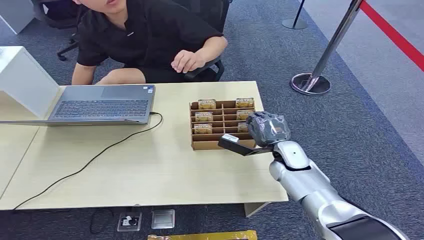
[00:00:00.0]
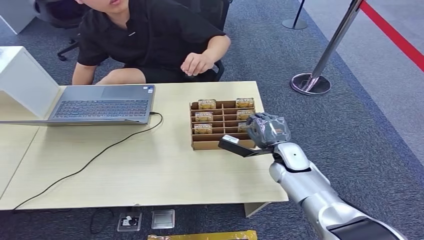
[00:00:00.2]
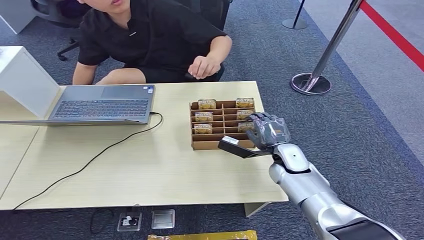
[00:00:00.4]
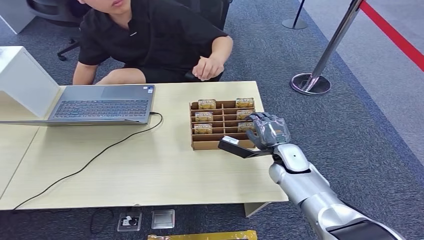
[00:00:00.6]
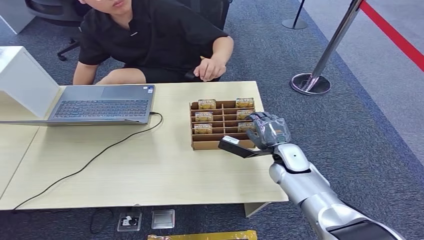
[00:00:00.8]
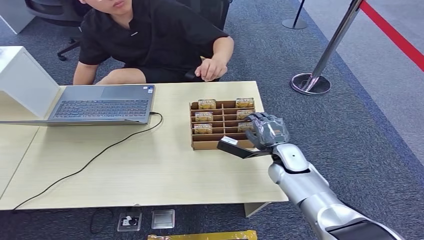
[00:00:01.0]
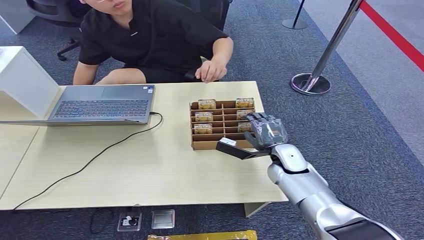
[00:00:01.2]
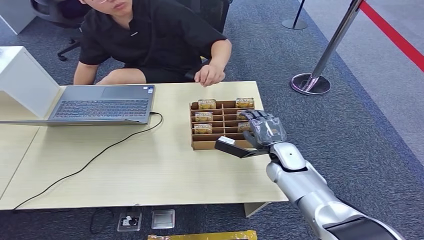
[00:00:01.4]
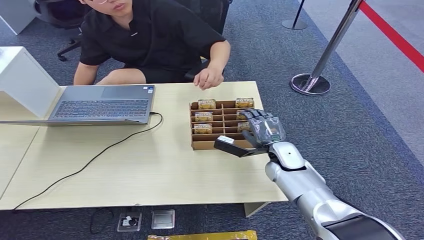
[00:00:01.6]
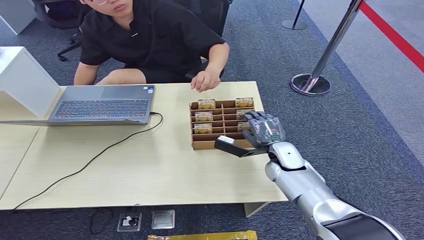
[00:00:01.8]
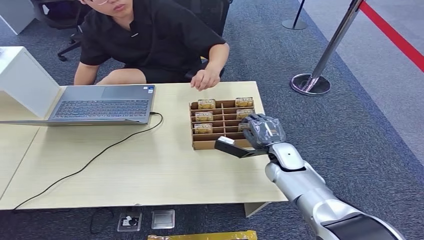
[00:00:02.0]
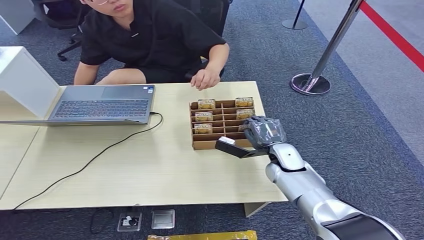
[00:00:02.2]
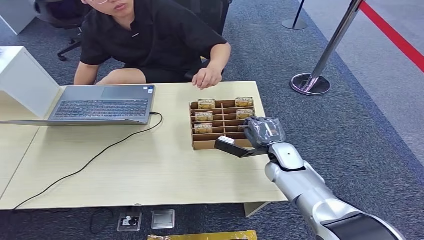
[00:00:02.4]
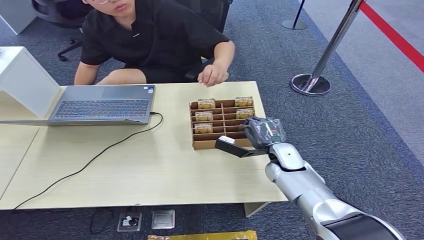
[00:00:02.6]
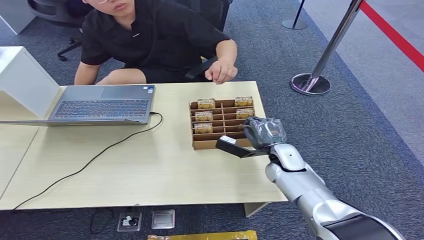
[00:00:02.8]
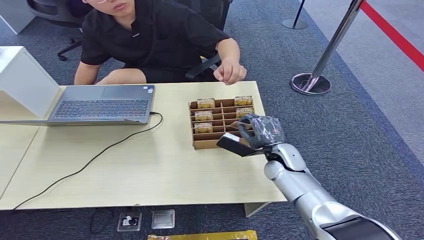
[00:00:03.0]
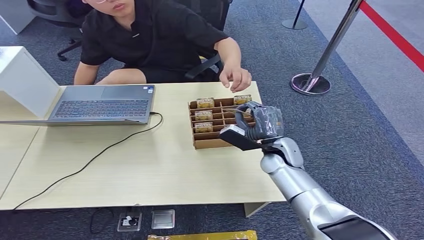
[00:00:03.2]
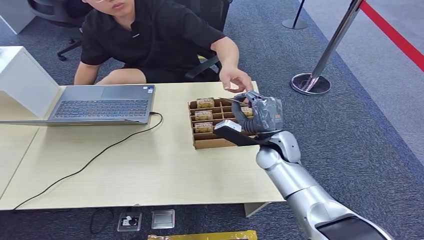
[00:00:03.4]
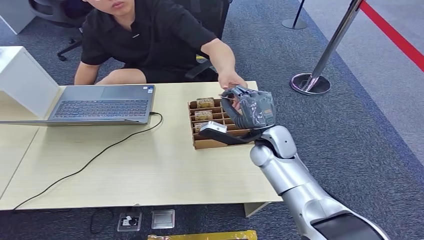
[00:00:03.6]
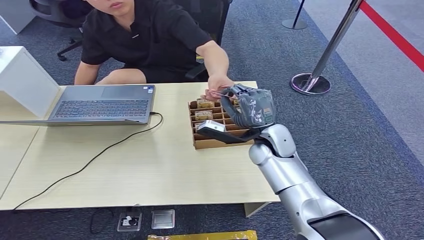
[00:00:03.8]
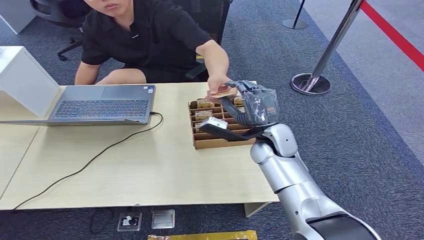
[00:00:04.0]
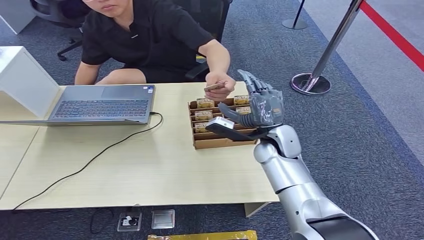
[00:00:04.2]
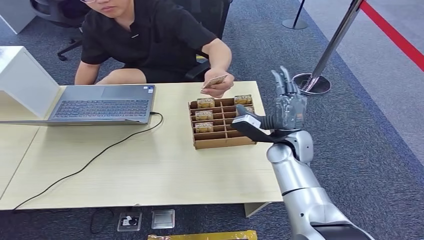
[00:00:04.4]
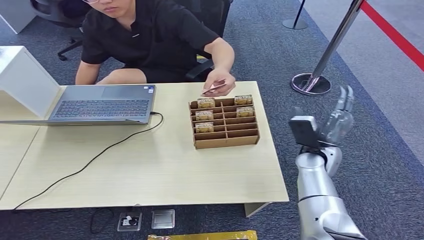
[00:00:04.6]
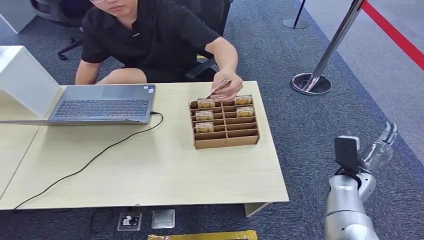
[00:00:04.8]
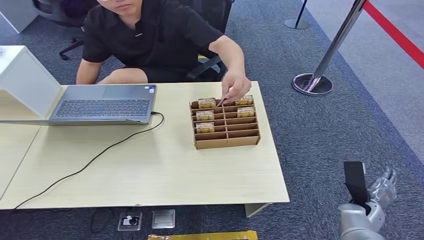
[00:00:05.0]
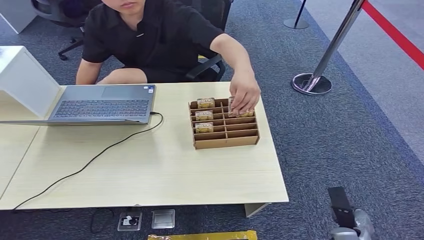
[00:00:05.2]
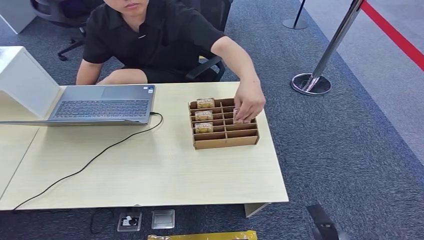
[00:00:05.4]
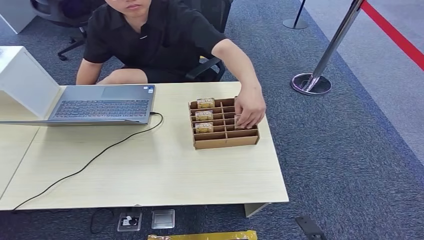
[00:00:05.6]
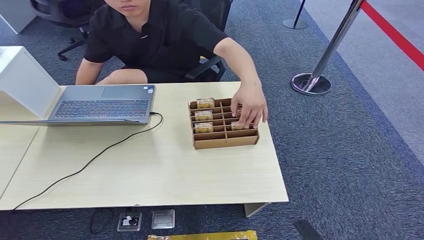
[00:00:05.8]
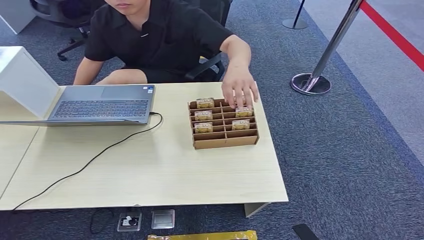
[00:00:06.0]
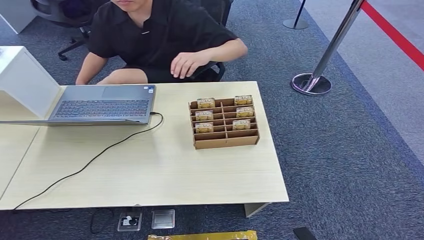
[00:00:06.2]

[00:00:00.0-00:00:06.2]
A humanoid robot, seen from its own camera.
Step, 00:00:00.0 to 00:00:03.6: Pick up the key card from the card box.
Step, 00:00:03.8 to 00:00:06.2: Hand the key card to the target.
00:00:03.2 to 00:00:04.6: The right hand travels to the right by some 10 cm.
00:00:04.6 to 00:00:06.2: The right hand travels backward and downward by some 40 cm.
